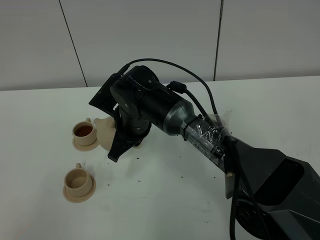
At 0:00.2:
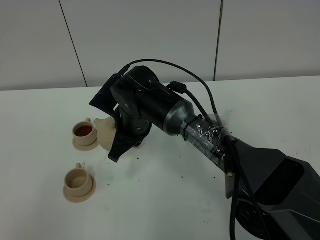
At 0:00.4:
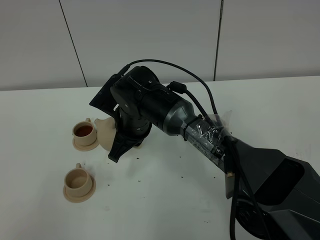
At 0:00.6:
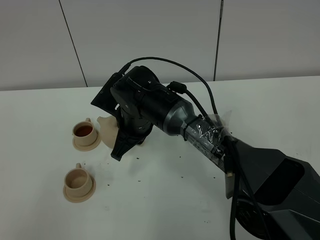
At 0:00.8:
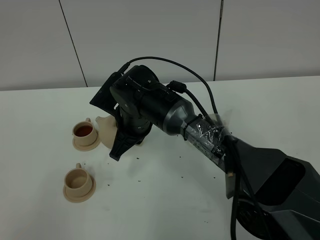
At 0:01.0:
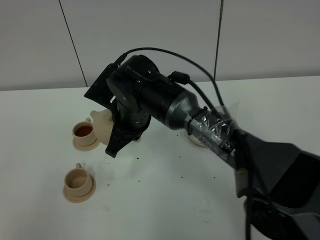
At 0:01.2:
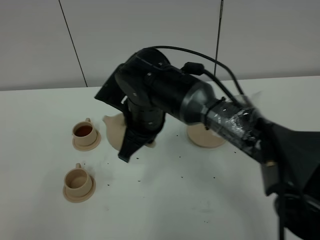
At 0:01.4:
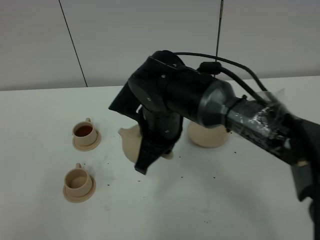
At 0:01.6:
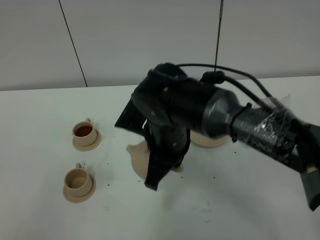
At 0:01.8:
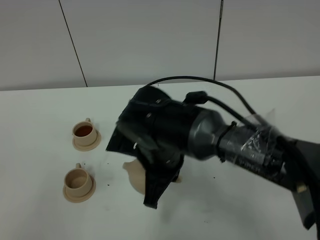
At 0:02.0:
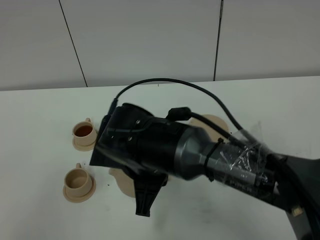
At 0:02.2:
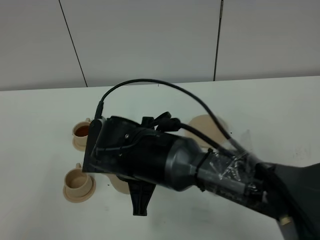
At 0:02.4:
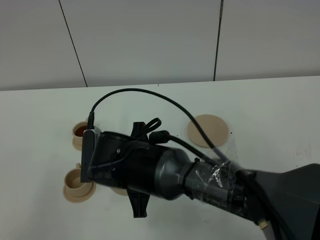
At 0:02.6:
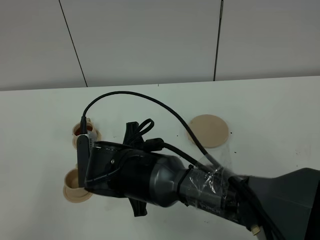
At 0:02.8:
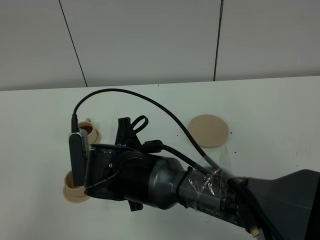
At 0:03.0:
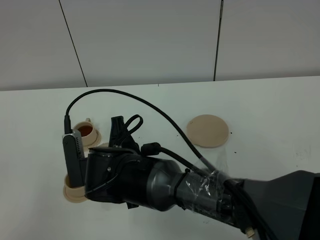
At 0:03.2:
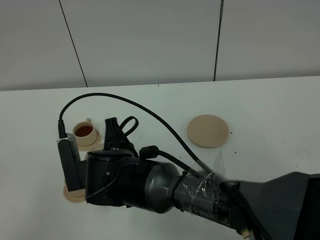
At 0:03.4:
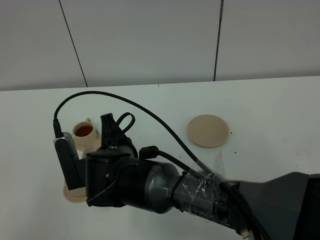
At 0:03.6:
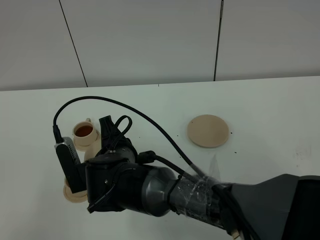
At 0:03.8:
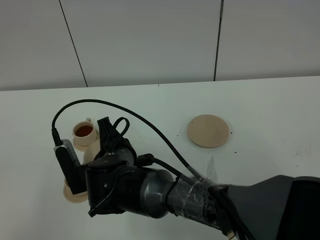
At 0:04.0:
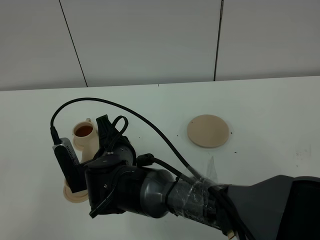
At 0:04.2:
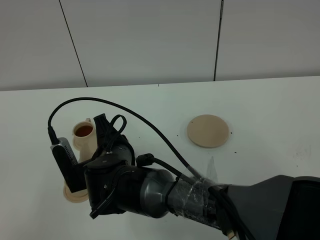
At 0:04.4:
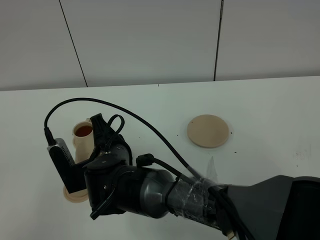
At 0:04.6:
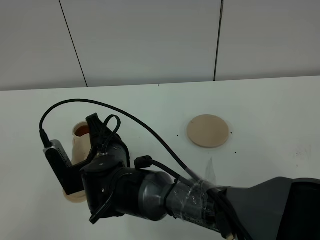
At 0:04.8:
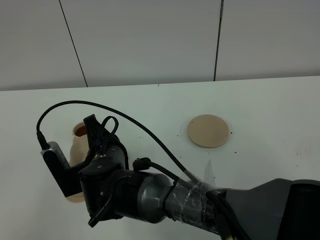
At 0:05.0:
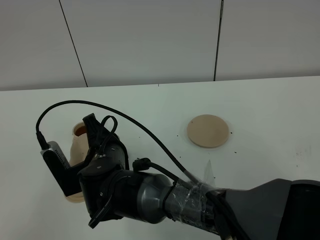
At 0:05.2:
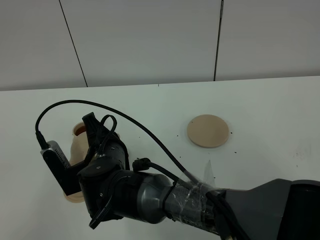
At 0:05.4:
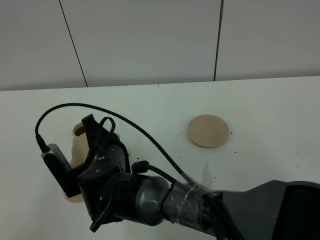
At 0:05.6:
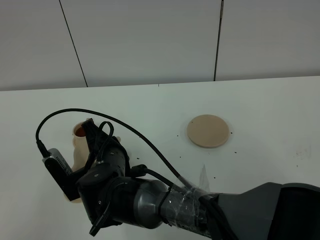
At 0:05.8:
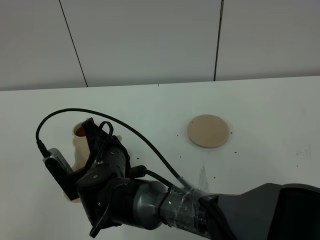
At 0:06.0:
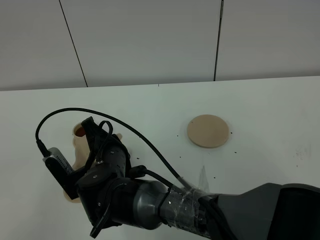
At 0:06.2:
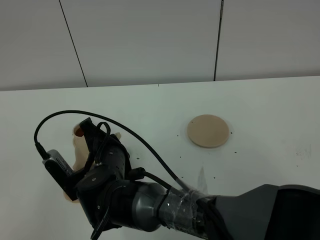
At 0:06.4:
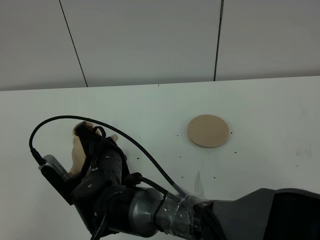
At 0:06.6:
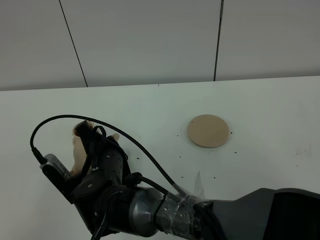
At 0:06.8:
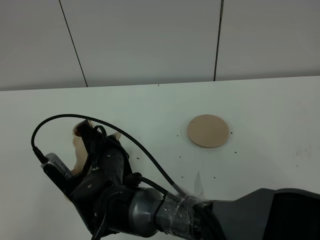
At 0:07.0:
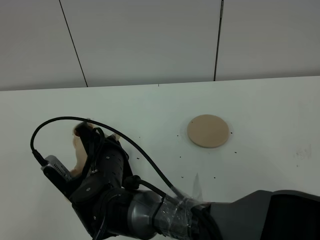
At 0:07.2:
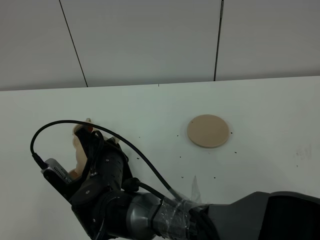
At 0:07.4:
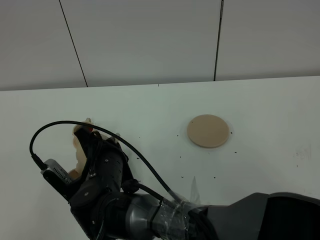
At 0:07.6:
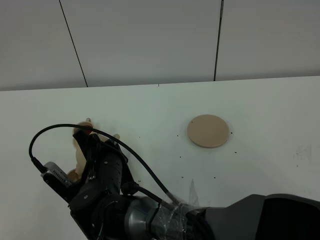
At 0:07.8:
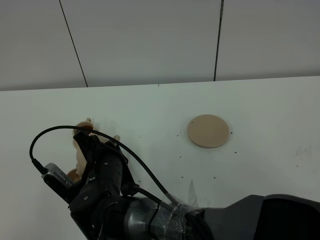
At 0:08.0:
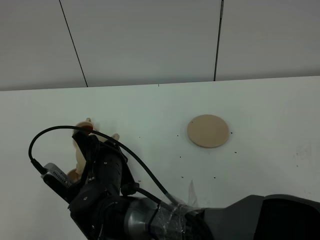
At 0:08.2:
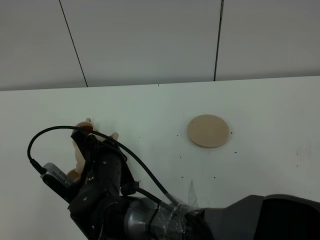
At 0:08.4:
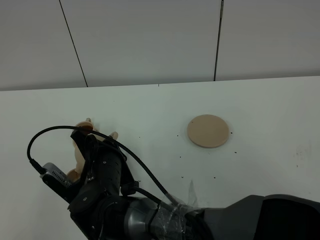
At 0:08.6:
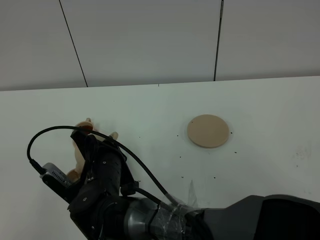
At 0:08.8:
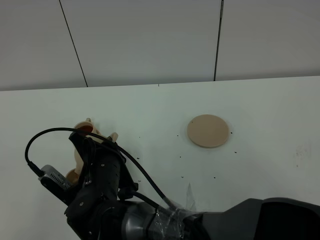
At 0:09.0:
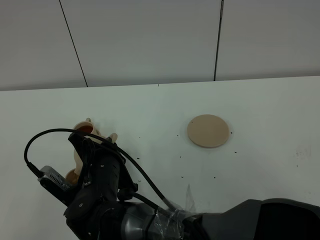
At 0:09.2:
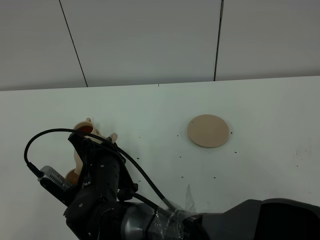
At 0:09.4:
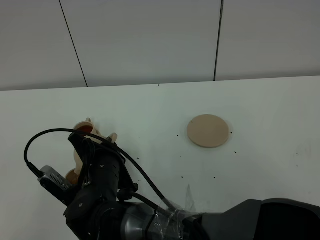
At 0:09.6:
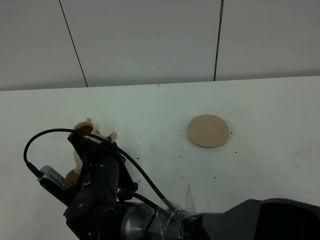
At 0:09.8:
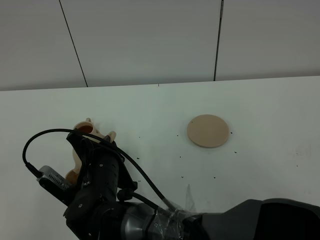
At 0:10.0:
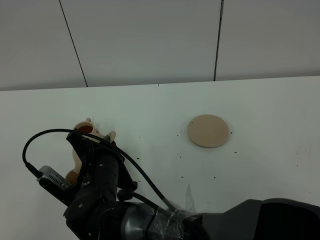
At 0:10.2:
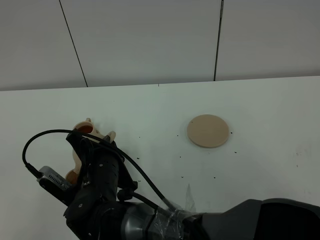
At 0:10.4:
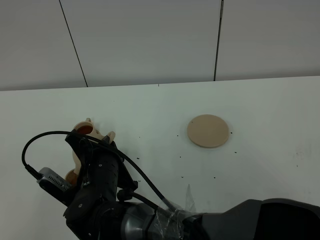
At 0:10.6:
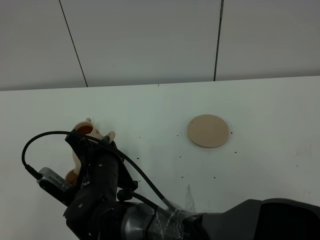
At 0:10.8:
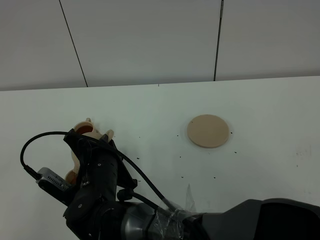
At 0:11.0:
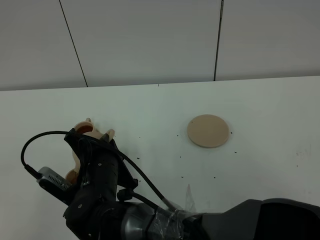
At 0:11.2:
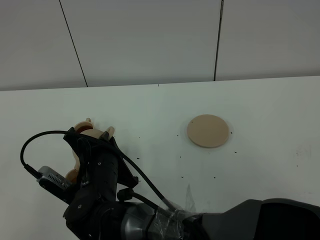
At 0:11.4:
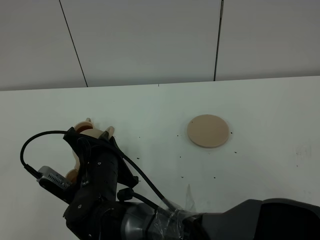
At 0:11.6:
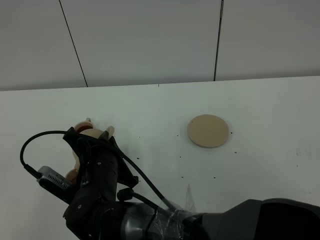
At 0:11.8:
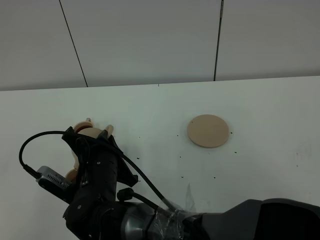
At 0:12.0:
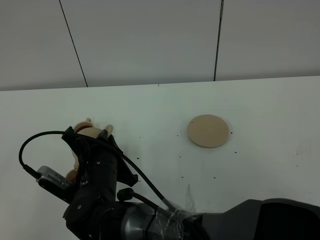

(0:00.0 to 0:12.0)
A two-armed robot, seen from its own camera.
Task of the whole recording: grasp the brown teapot and pour the tea into the two brown teacups one by one, put the brown teapot back in its original place.
0:00.0 - 0:01.6: The right gripper is displaced backward and to the right by about 10 cm.
0:01.6 - 0:03.0: The right gripper travels to the left by some 10 cm.
0:03.0 - 0:04.4: The grippers stay close to where they were, moving slightly.
0:04.4 - 0:07.6: There are only small adjustments of the grippers.
0:07.6 - 0:09.0: Both grippers stay about where they are.
0:09.0 - 0:10.4: Both grippers stay about where they are.
0:10.4 - 0:12.0: Both grippers stay put.

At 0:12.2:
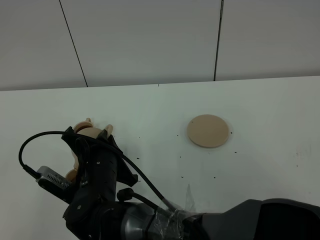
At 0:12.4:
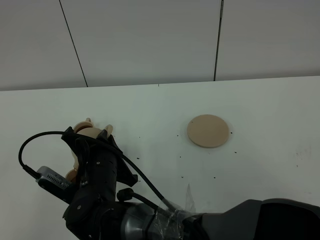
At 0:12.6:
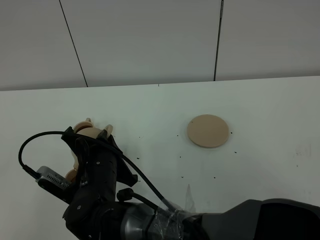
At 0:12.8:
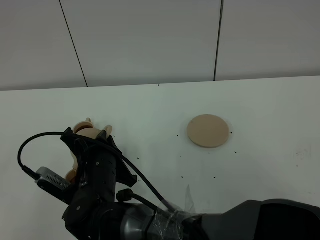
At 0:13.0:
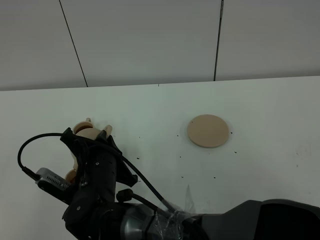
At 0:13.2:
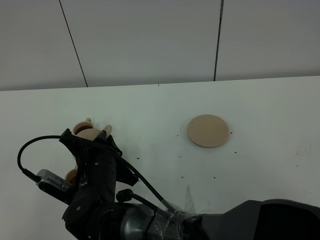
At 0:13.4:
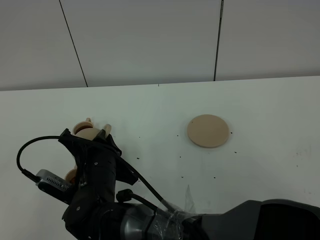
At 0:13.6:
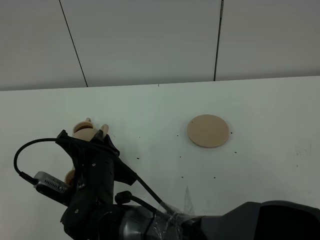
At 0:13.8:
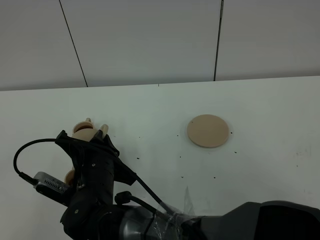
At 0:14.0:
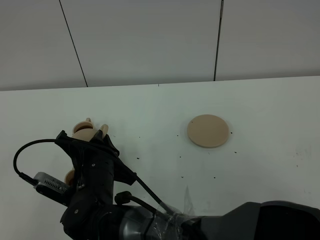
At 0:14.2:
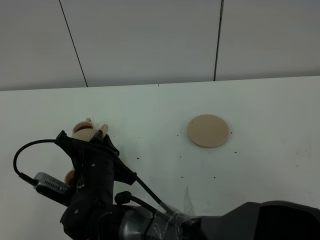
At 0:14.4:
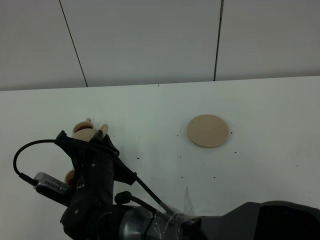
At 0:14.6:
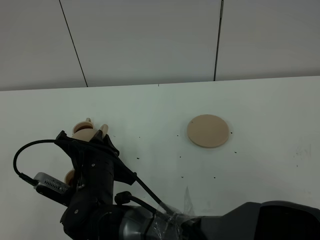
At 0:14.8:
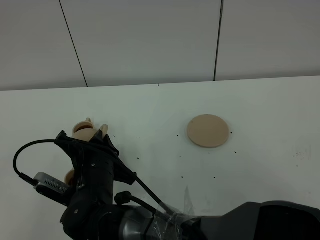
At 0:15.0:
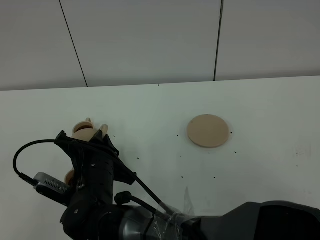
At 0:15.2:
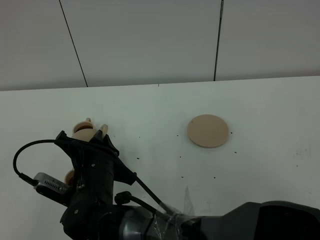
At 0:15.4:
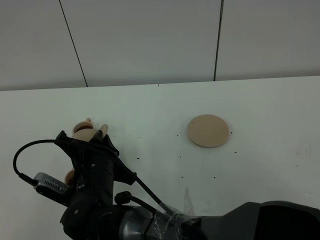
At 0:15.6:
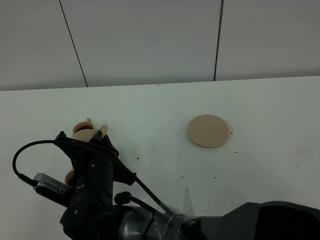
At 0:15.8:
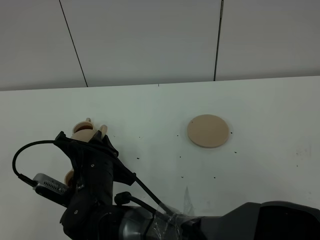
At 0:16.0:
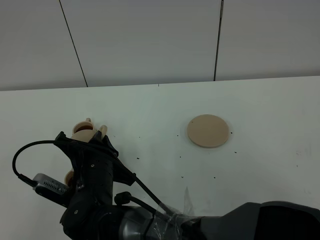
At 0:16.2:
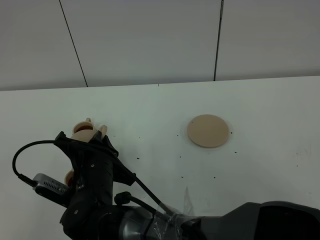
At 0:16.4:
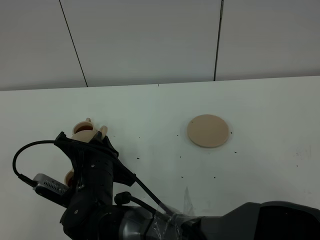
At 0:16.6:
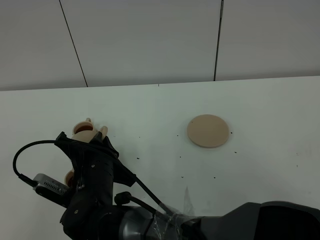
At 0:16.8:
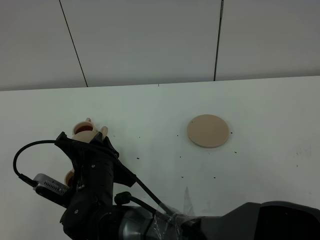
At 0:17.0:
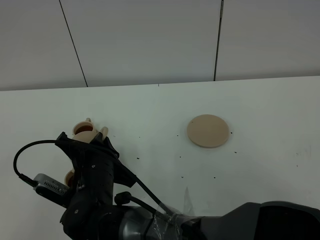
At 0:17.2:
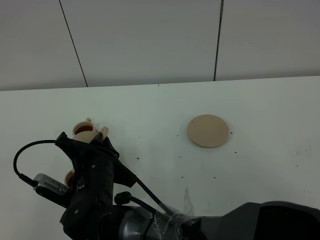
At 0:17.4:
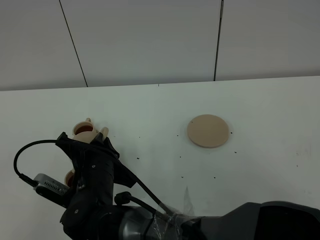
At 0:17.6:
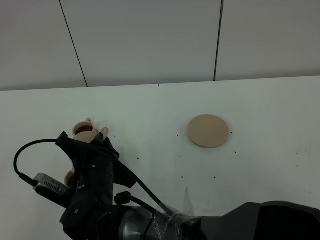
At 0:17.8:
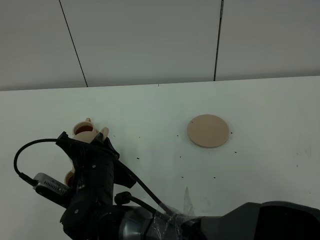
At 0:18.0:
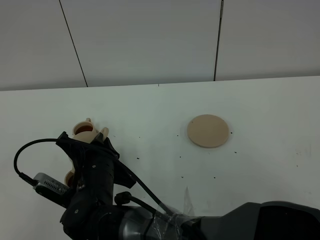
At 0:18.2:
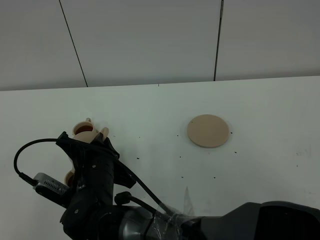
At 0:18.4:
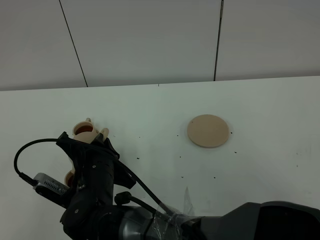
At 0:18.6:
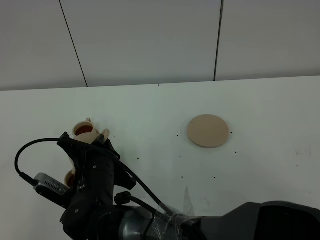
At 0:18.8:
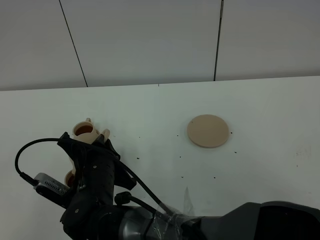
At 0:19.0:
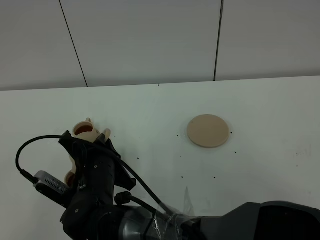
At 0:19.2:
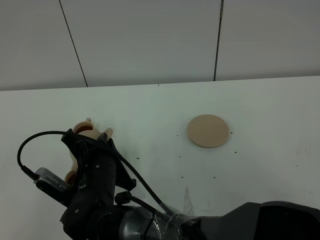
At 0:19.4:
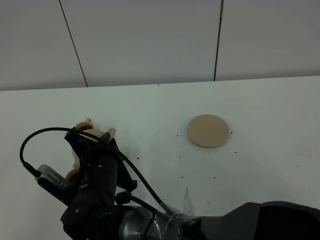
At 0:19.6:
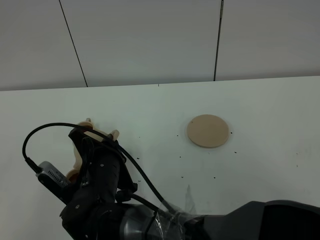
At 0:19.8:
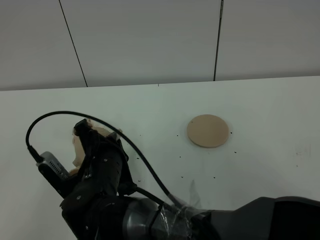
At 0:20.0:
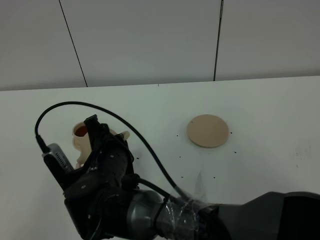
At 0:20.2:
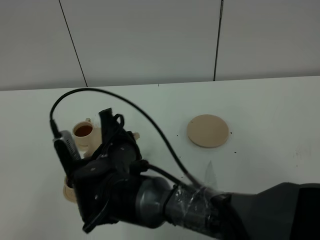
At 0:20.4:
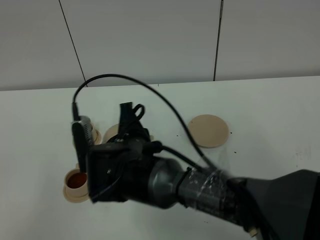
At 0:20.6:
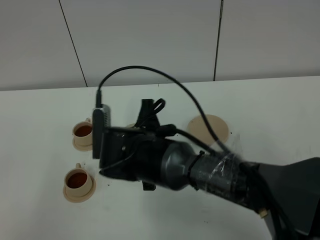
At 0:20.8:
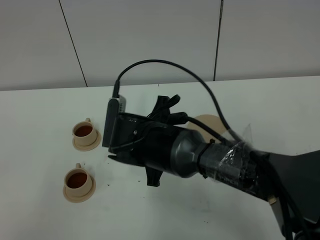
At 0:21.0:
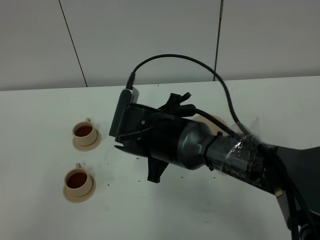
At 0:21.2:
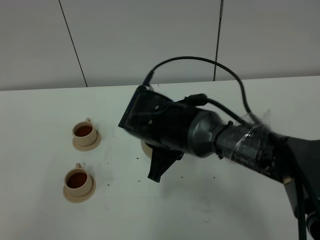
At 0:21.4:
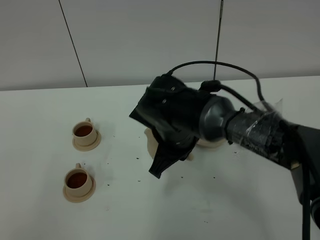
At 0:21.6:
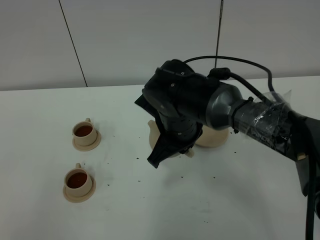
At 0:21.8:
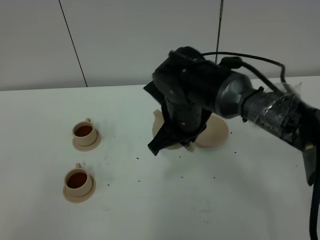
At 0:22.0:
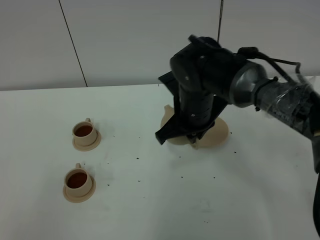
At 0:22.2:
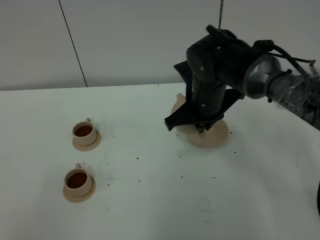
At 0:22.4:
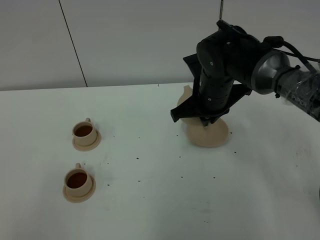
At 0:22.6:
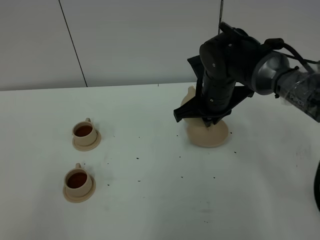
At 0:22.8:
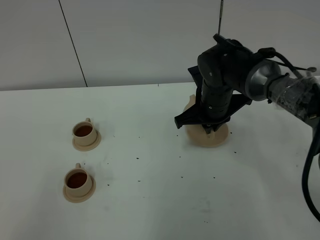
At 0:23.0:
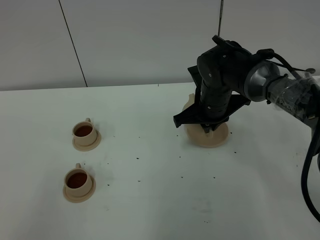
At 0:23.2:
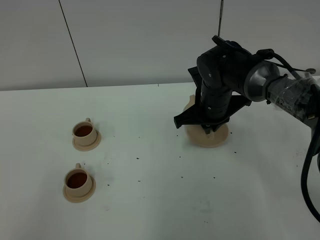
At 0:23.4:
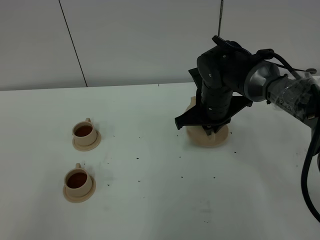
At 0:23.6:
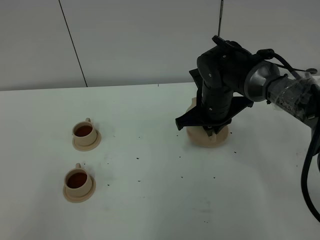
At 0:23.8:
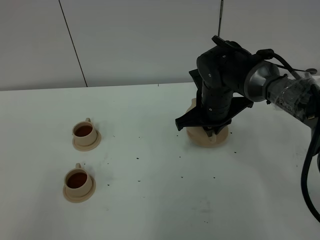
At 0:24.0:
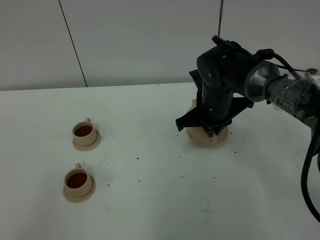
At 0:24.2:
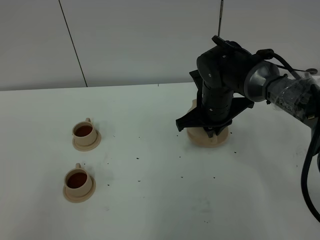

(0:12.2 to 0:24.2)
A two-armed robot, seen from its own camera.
Task of the whole recording: grasp the brown teapot and pour the tea into the two brown teacups one by one, put the brown teapot back in its original place.
Step, 0:12.2 - 0:19.4: Pour tea into the teacup with the right gripper.
0:12.2 - 0:13.8: Both grippers stay about where they are.
0:13.8 - 0:18.2: Neither gripper changes place.
0:18.2 - 0:19.8: The grippers stay close to where they were, moving slightly.
0:19.8 - 0:21.2: The right gripper shifts approximately 10 cm to the right and forward.
0:21.2 - 0:22.6: The right gripper travels forward and to the right by some 15 cm.
0:22.6 - 0:24.2: The grippers make only small movements.
